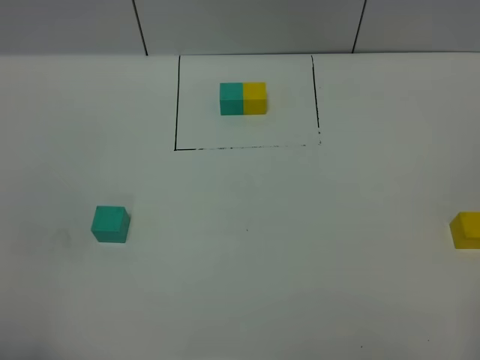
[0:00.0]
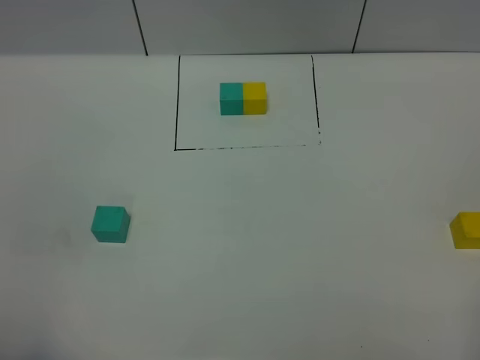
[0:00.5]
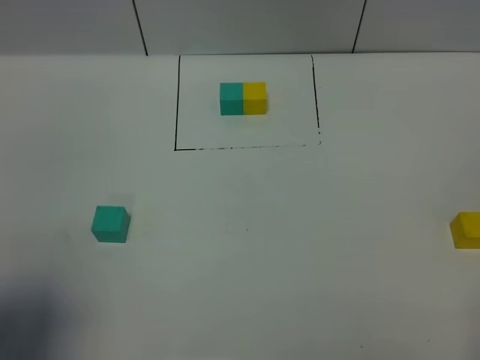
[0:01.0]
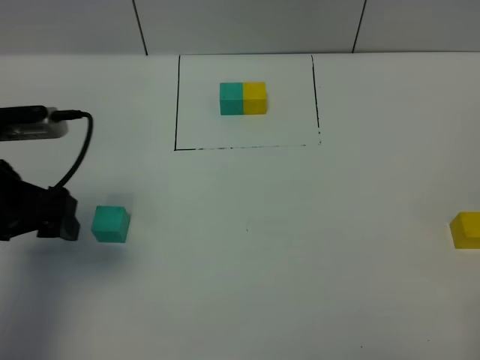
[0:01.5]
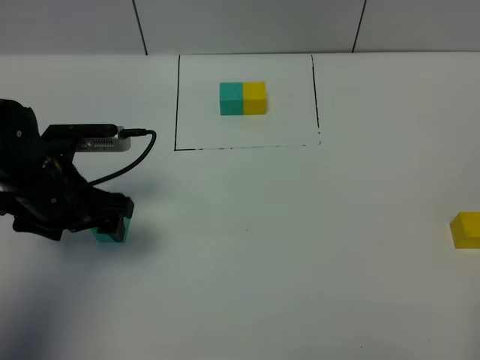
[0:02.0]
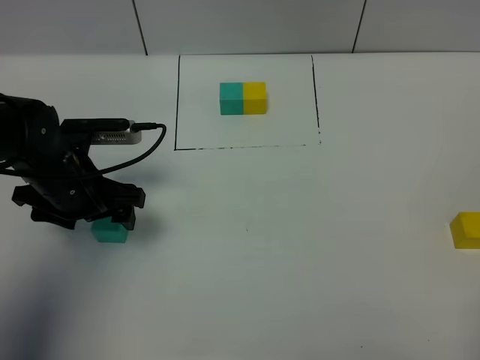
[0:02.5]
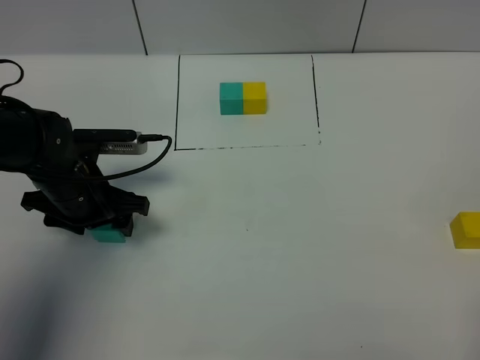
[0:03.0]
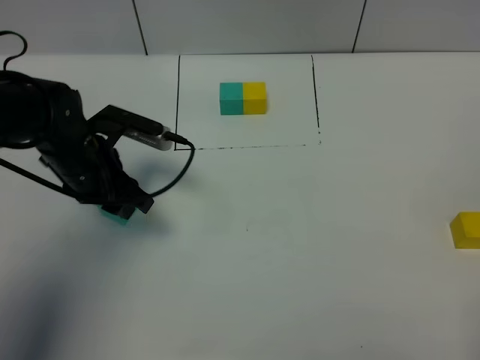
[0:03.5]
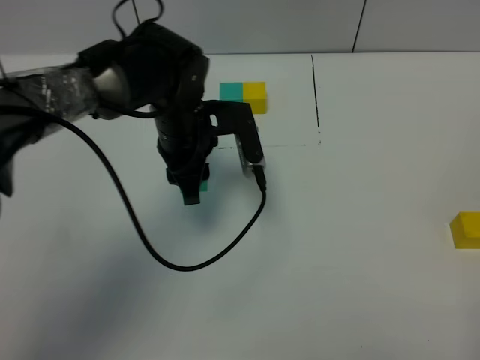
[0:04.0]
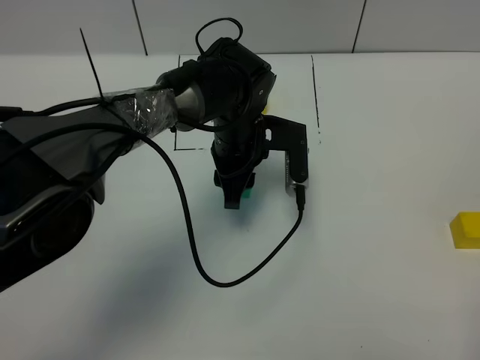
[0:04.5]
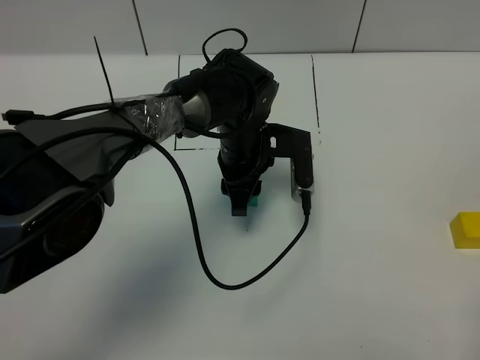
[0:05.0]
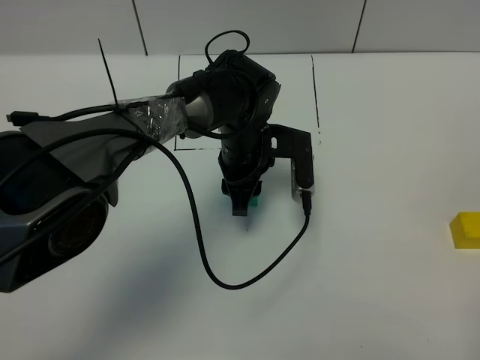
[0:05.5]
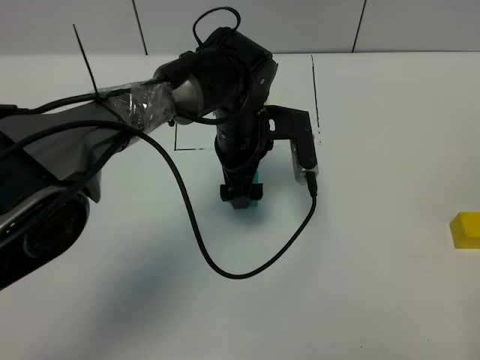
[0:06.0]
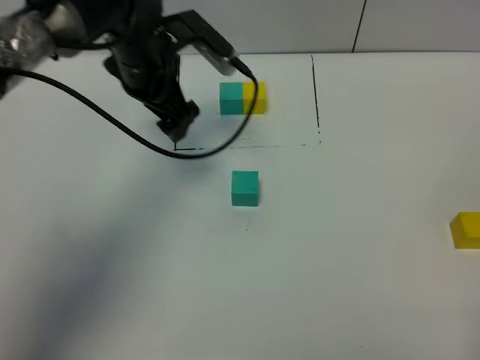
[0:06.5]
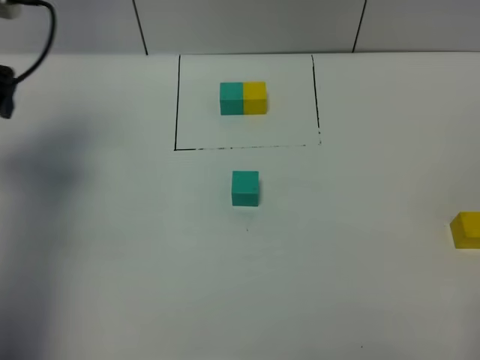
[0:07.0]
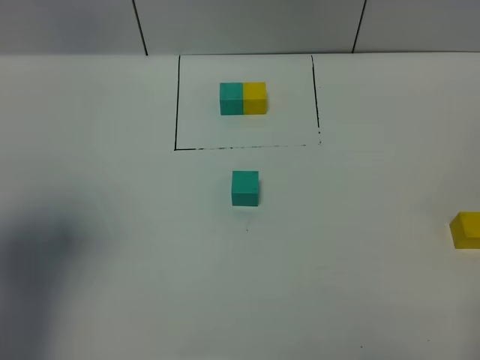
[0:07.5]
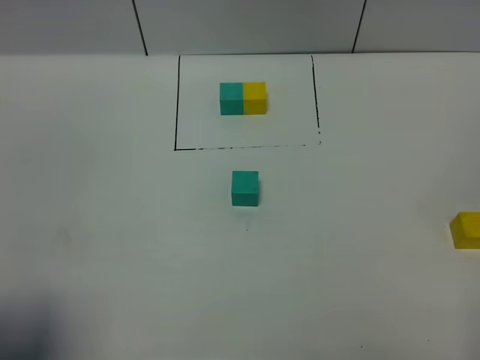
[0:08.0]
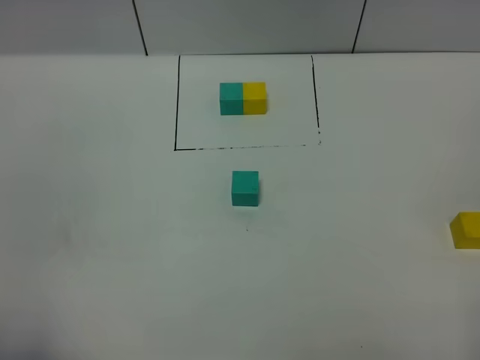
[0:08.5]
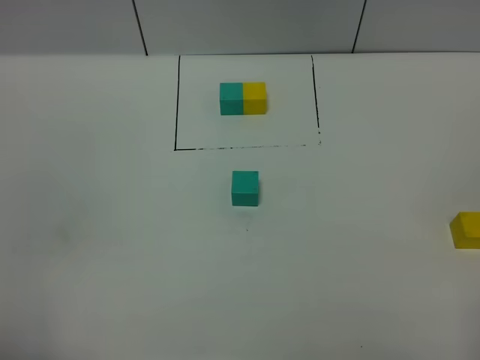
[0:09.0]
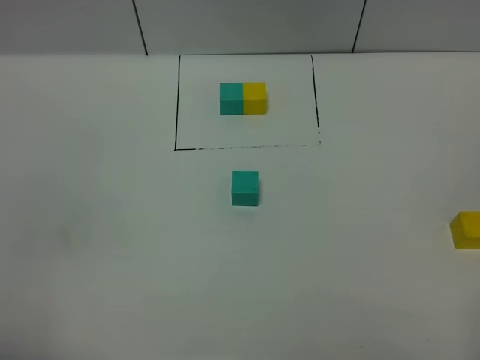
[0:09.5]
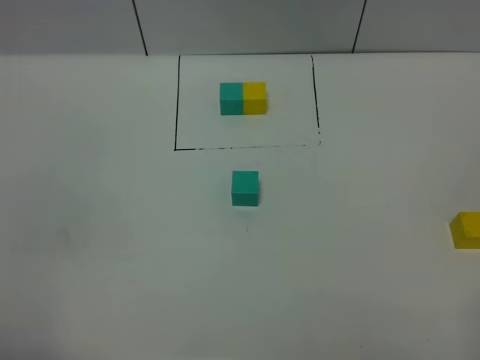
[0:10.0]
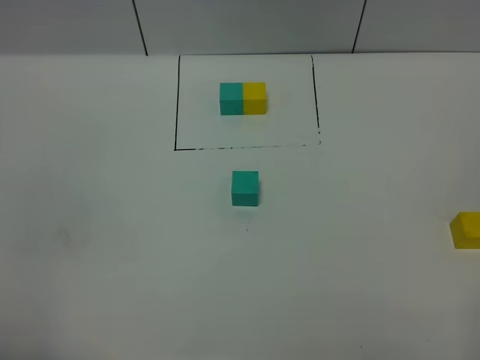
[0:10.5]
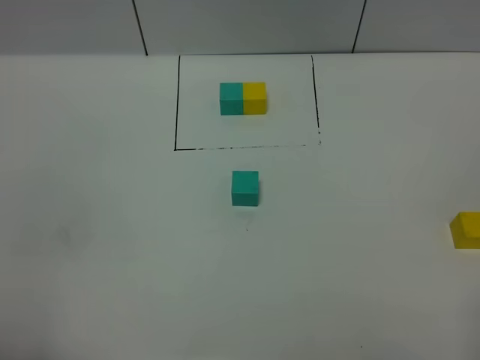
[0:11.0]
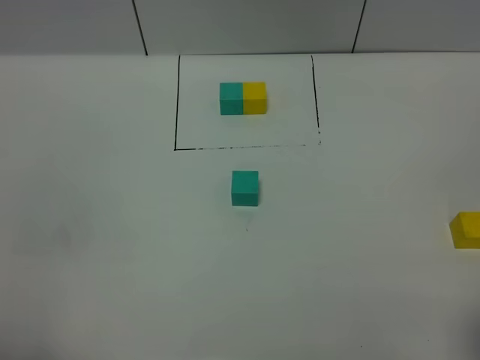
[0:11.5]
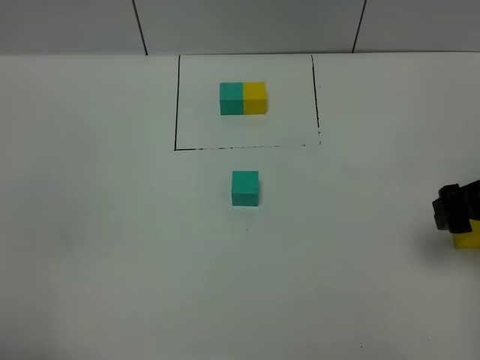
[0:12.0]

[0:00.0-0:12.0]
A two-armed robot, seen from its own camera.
Task of the whole recording: According to the building block template in front, assemble the scattered blocks together.
Step, 0:01.5 to 0:06.0: Put the green cube in the center of the table.
0:00.0 to 0:02.0: The left gripper goes some 30 cm forward.
0:02.0 to 0:04.0: The left gripper is displaced to the right and forward by some 15 cm, and closes its fingers.
0:04.0 to 0:06.0: The left gripper heads to the right, covering approximately 5 cm, and opens.
0:06.0 to 0:08.0: The left gripper is displaced backward, to the left and upward by roughly 50 cm.
0:08.0 to 0:10.0: The left gripper shifts about 5 cm backward.
0:10.0 to 0:12.0: The right gripper heads forward, covering approximately 25 cm.

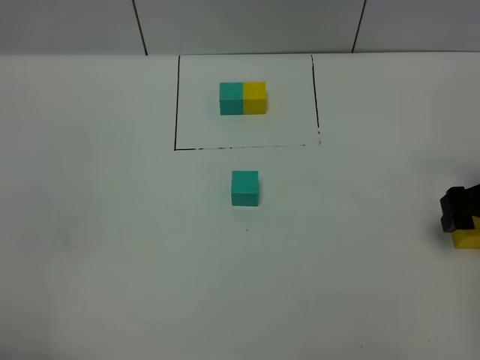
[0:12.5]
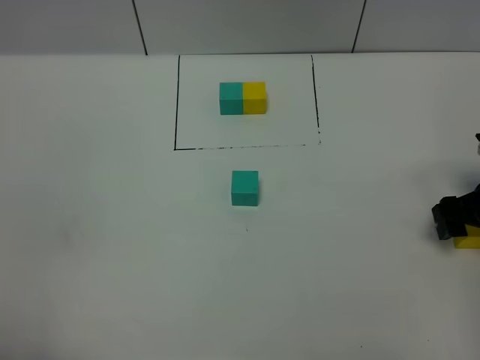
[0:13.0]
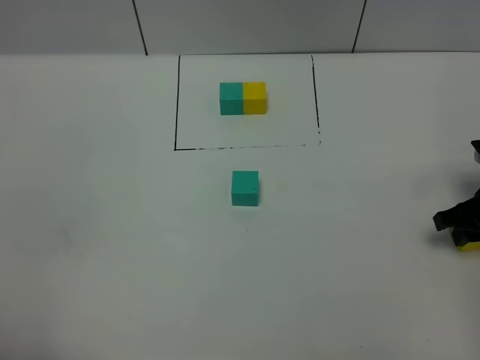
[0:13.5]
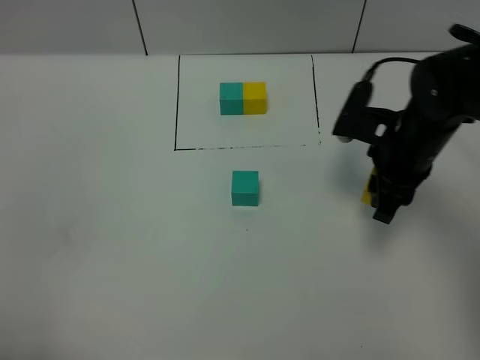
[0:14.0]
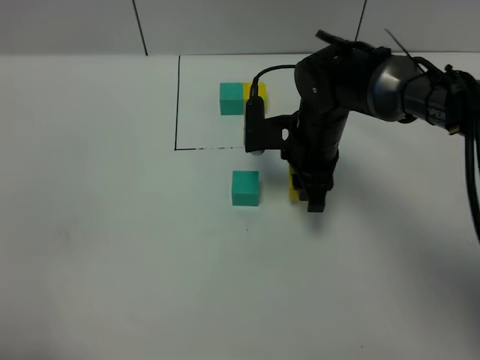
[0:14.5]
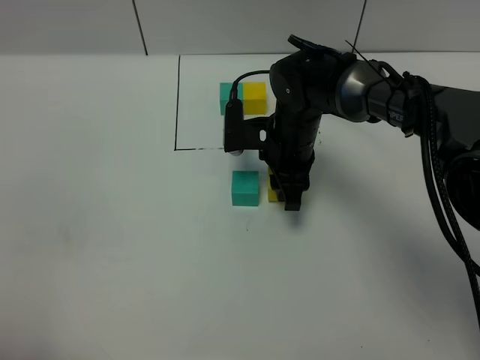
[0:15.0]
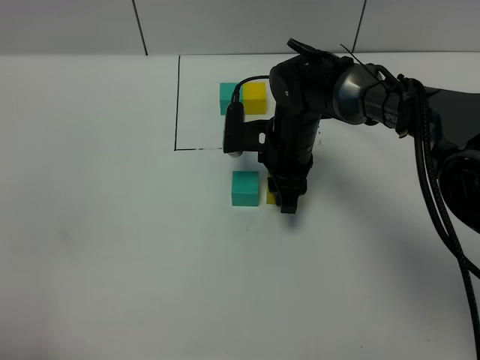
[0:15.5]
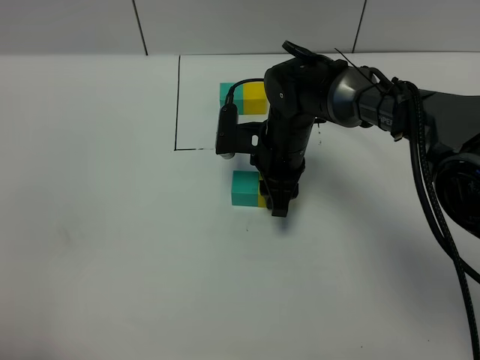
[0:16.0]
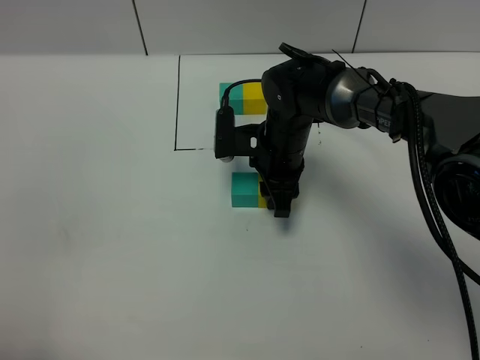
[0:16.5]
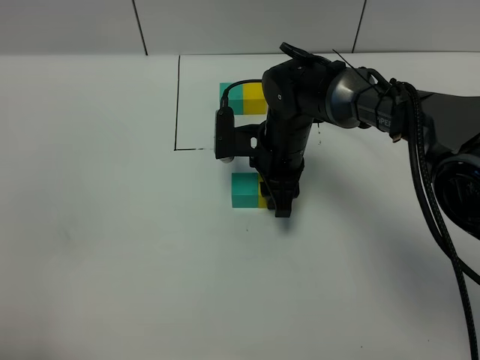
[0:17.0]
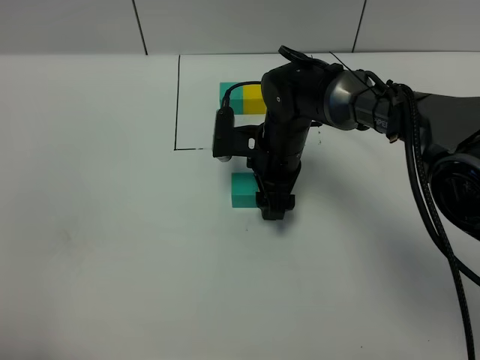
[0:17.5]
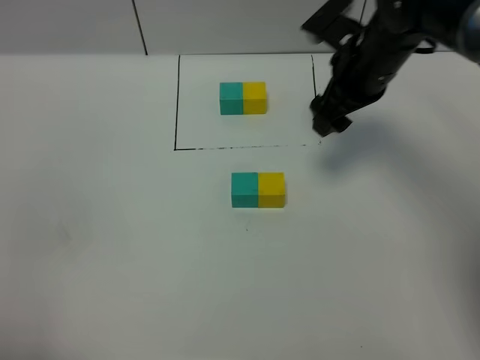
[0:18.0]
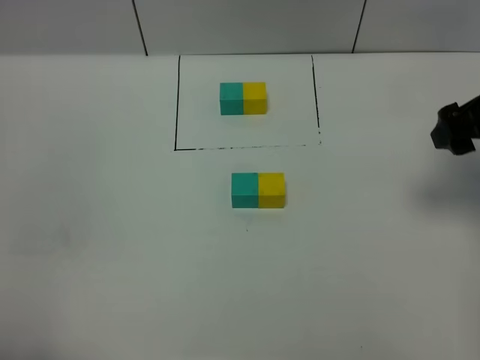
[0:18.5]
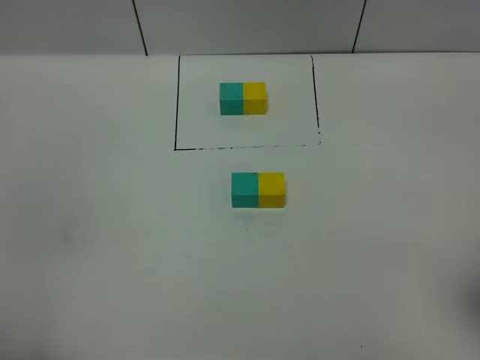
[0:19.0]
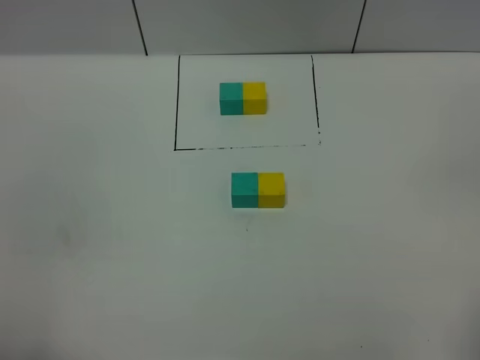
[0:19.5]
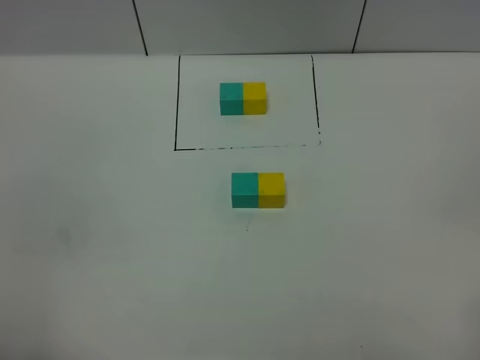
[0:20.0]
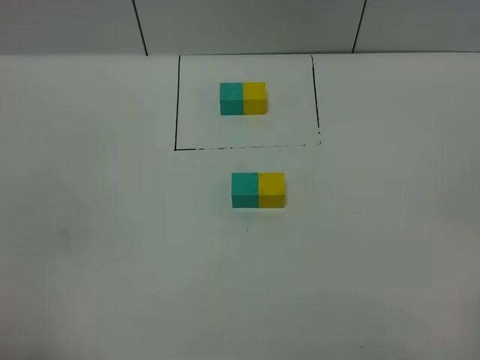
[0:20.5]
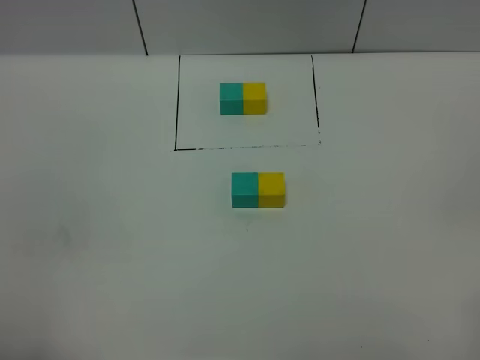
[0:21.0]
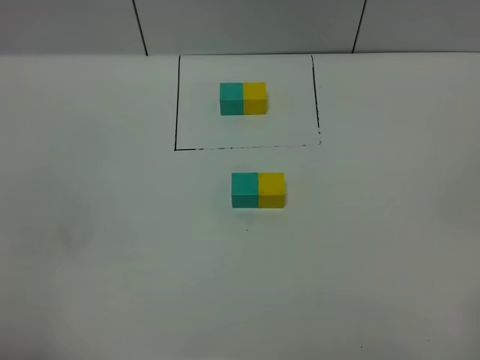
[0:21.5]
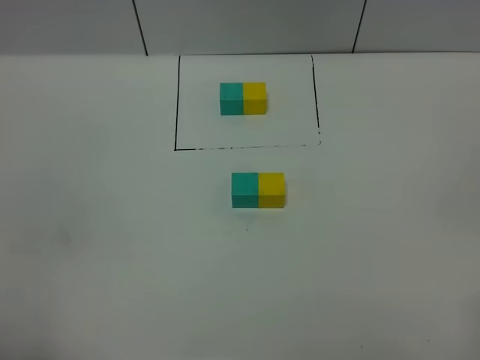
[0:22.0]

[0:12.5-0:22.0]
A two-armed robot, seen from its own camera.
Task of the whole recording: According to the building block template in front, assemble the scattered blocks together.
Step, 0:12.5 to 0:17.5: Put the yellow cube on the right of the green cube.
0:12.5 to 0:14.5: The right gripper is displaced to the left and forward by some 25 cm, and closes.
0:14.5 to 0:16.5: The grippers stay close to where they were, moving slightly.
0:16.5 to 0:18.0: The right gripper goes approximately 15 cm to the right and upward, and opens its fingers.
0:18.0 to 0:20.0: The right gripper goes approximately 40 cm backward.
0:20.0 to 0:22.0: The two grippers keep their place.
